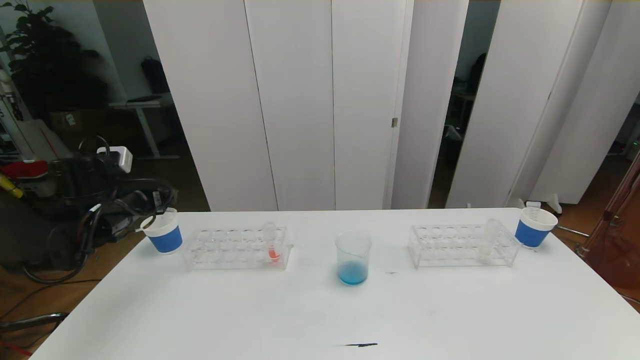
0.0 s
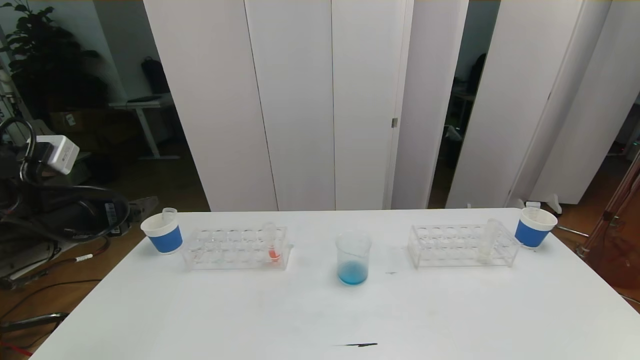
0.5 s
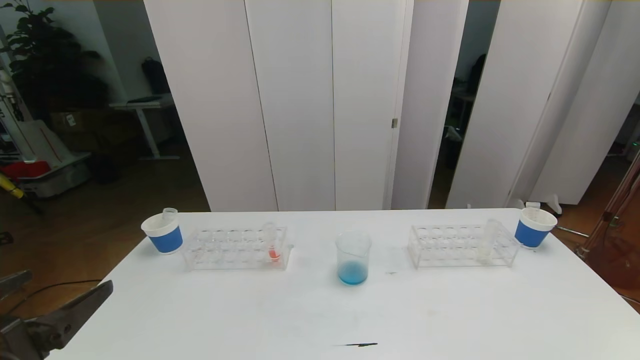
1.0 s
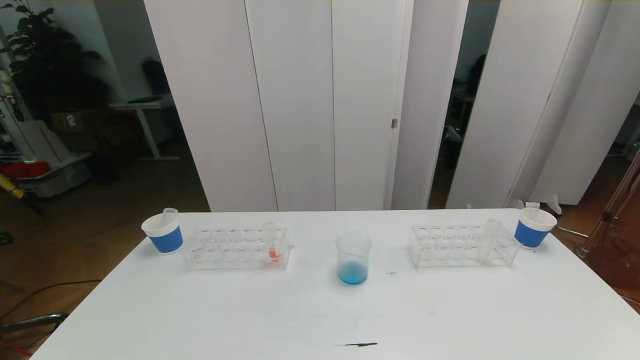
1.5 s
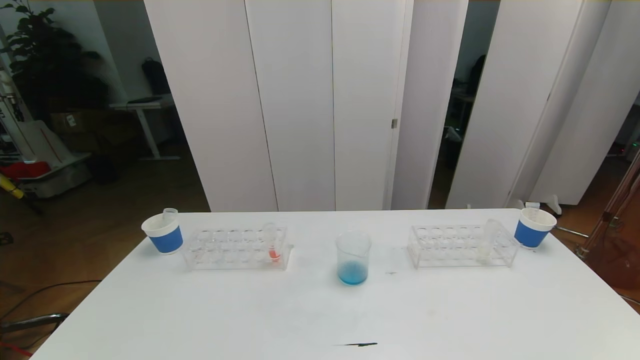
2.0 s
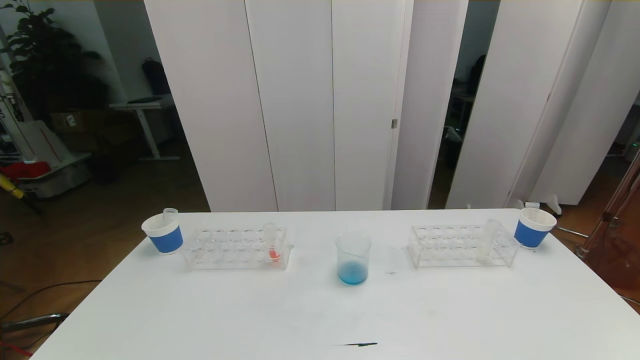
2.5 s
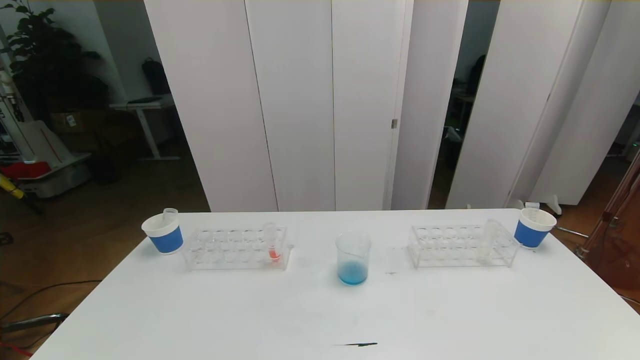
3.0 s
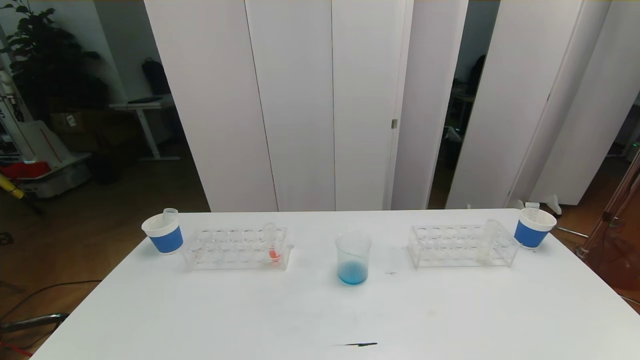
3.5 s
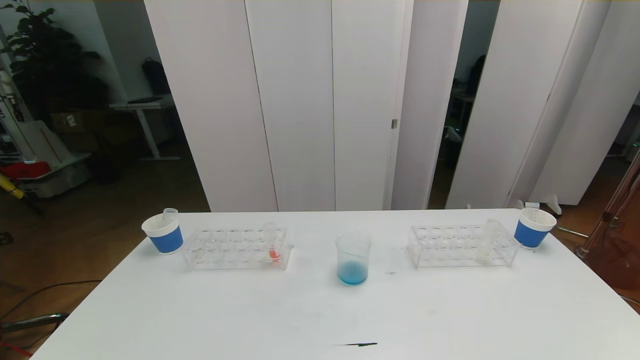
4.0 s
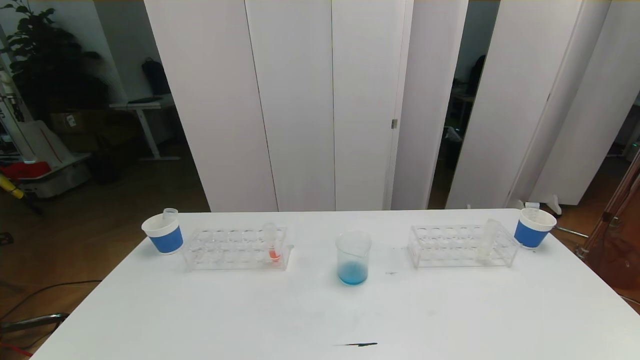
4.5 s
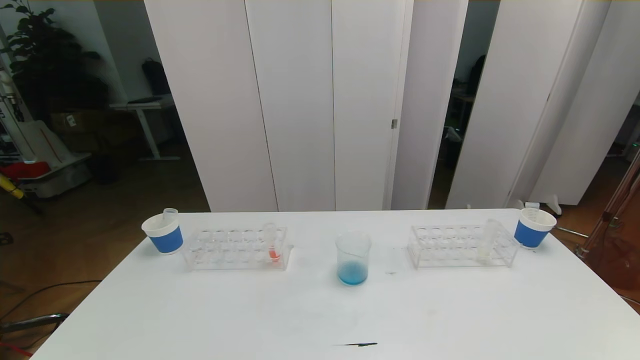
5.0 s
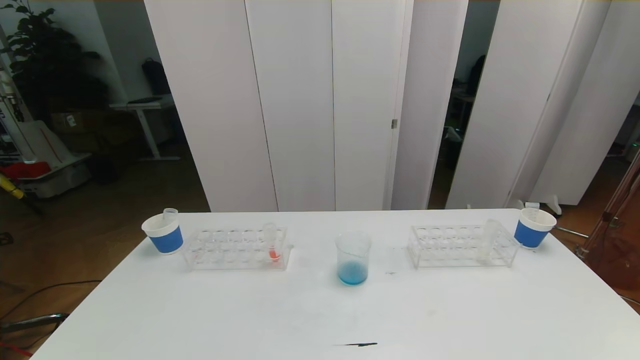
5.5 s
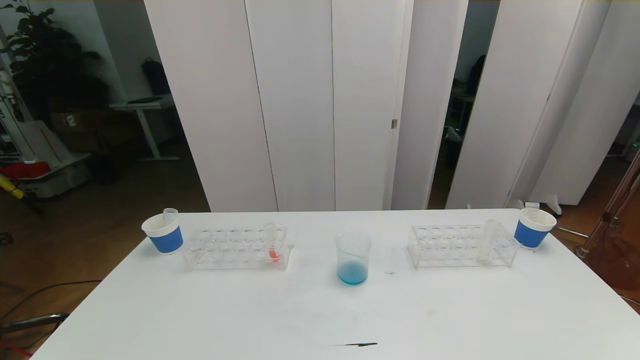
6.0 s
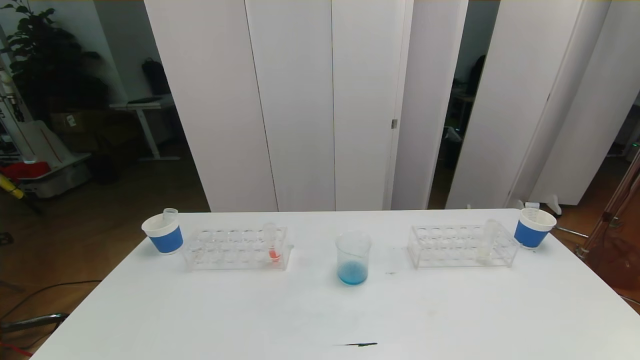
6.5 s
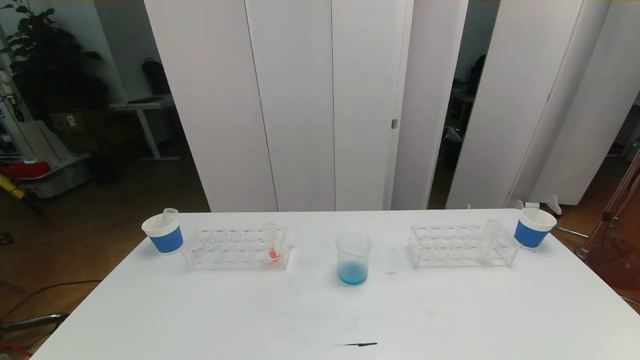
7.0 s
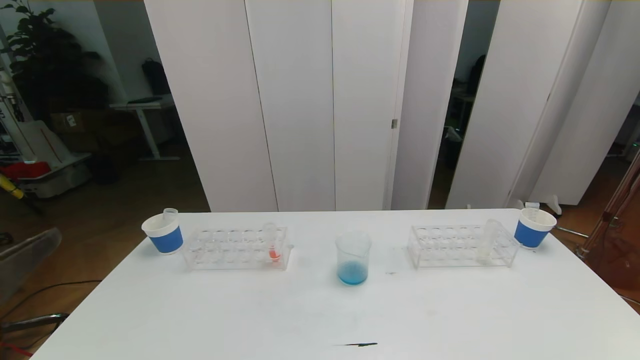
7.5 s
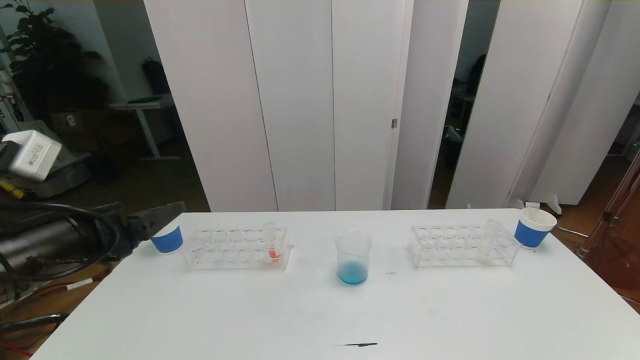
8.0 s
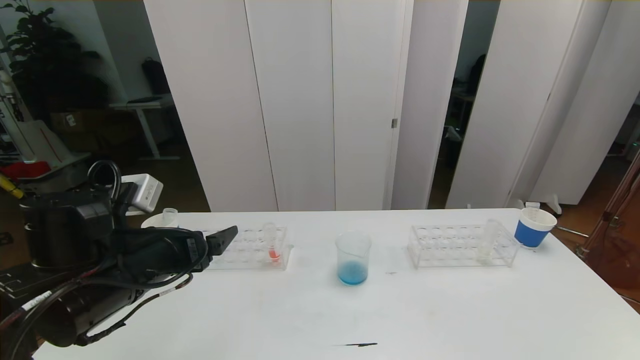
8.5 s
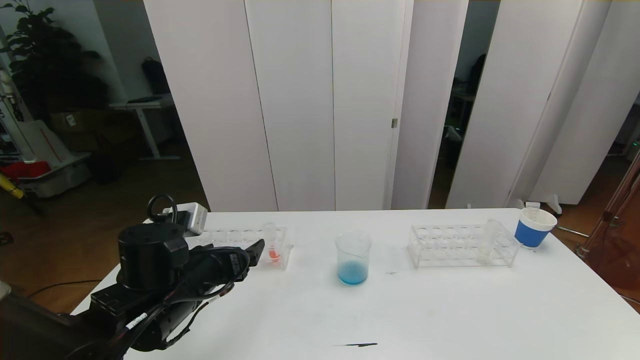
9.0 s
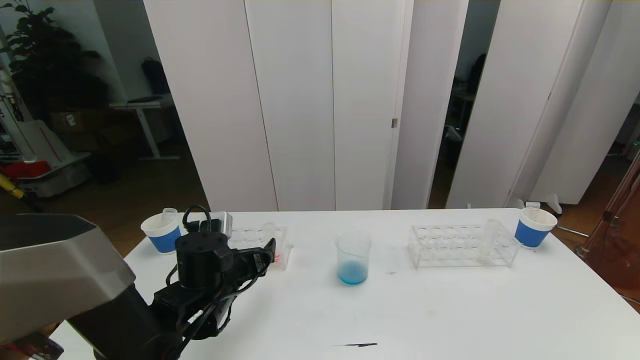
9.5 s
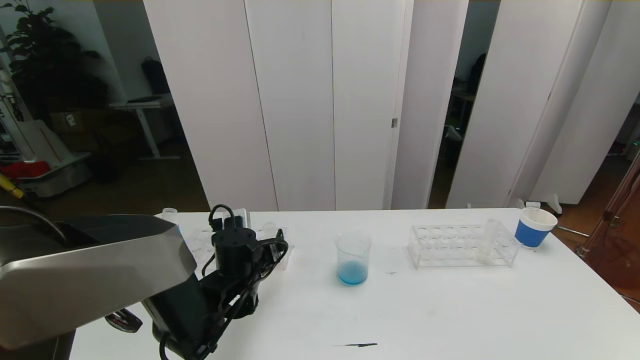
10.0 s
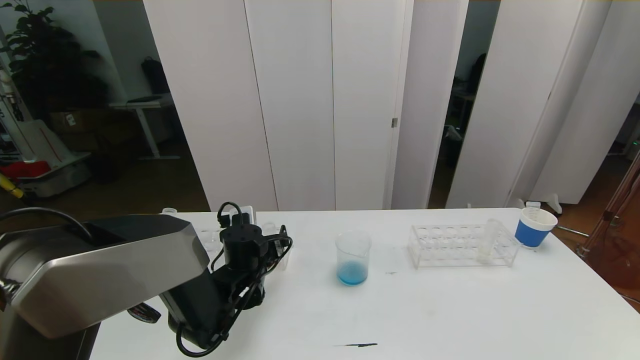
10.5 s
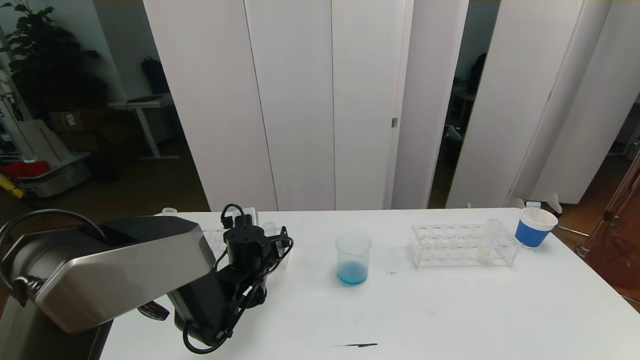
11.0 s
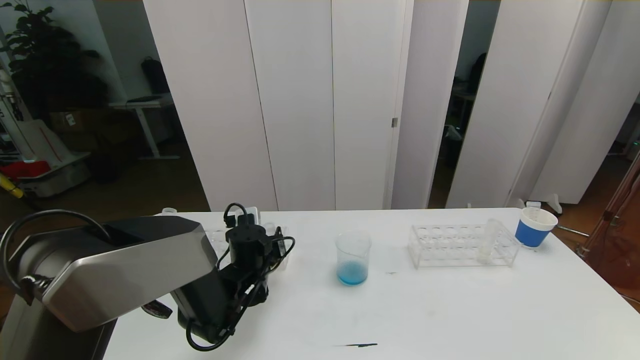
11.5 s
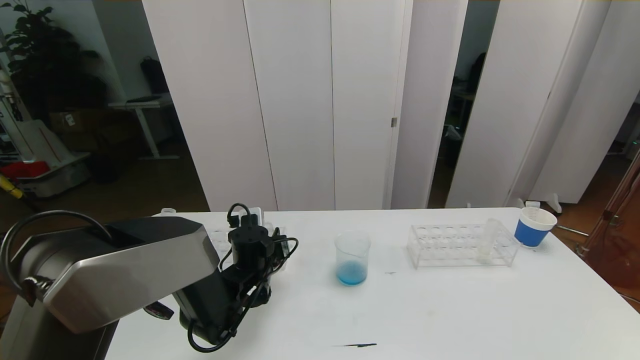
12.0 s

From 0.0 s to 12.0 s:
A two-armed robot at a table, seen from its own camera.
Task of the whole recording: pick up the test tube with red pigment the test tube with blue pigment and the test tube with white pigment by grippers and pour them into the beaker.
Step, from 0.0 s to 4.0 s: Pour the blue reagent into the graduated cylinder and place the test tube into the paper cup.
From 0.0 s to 2.0 s: The left gripper is displaced backward by approximately 35 cm.
From 4.0 s to 6.0 s: Neither gripper changes place.
From 6.0 s to 8.0 s: The left gripper moves forward and upward, approximately 25 cm.
From 8.0 s to 10.0 s: The left gripper moves downward, forward and to the right, approximately 25 cm.
From 10.0 s to 12.0 s: The left gripper closes its fingers.

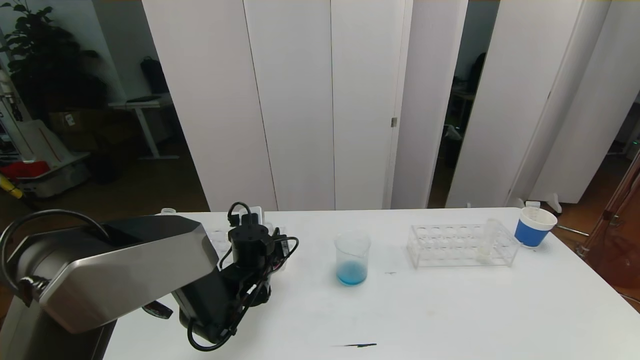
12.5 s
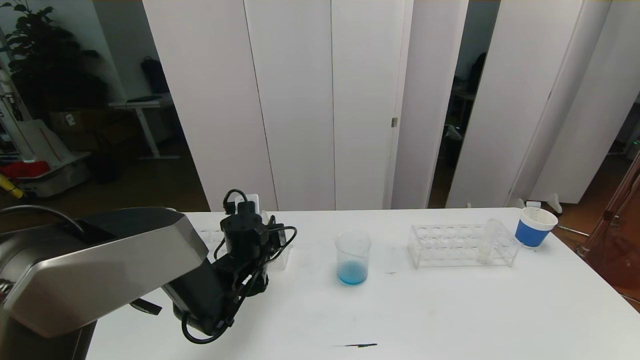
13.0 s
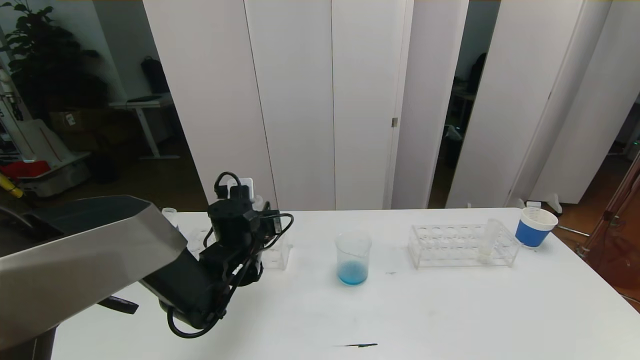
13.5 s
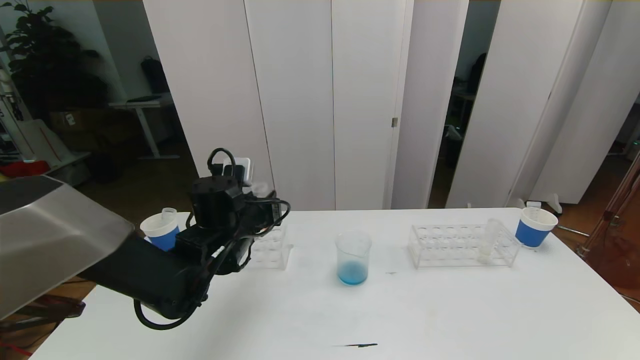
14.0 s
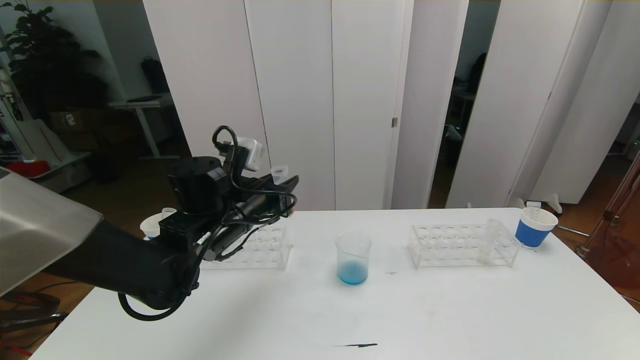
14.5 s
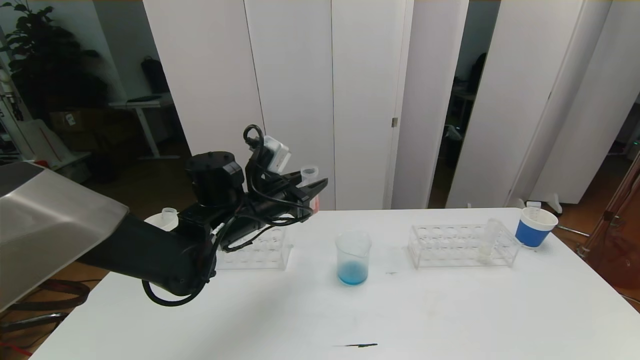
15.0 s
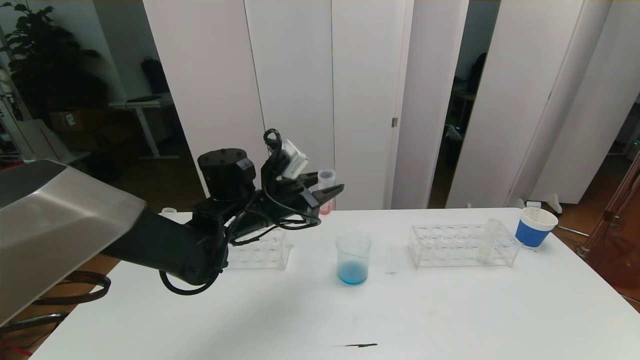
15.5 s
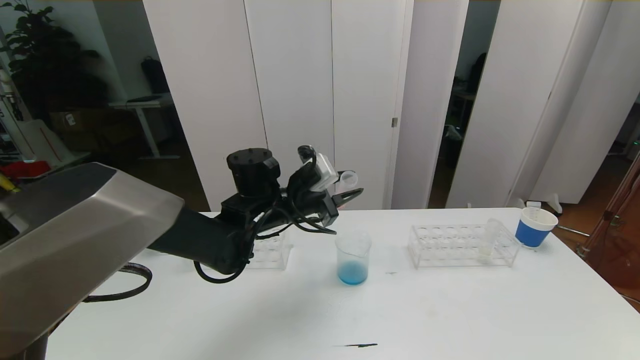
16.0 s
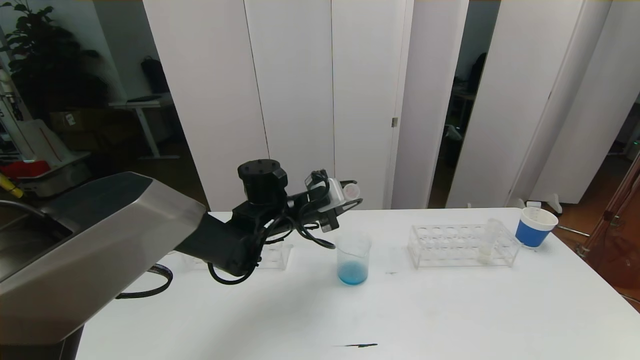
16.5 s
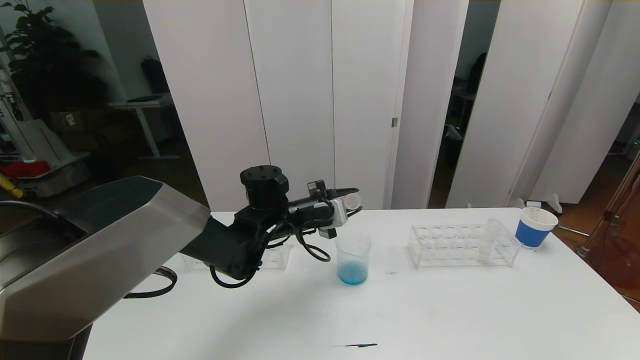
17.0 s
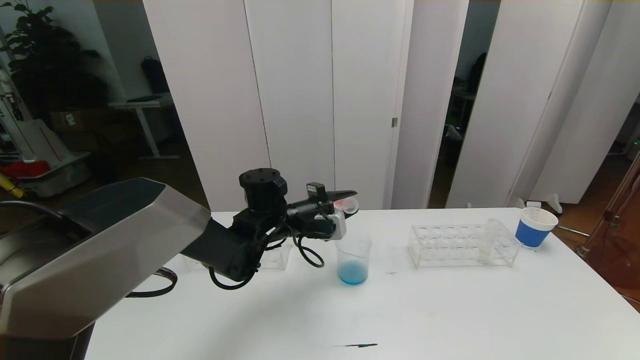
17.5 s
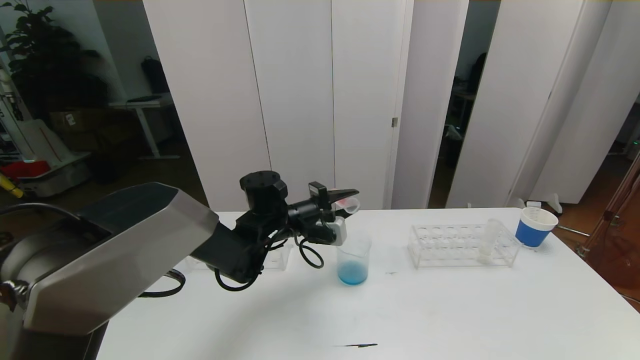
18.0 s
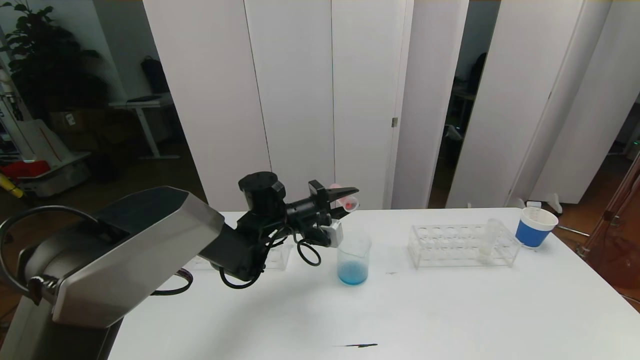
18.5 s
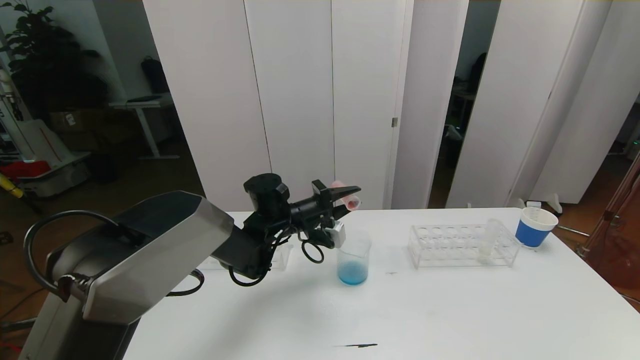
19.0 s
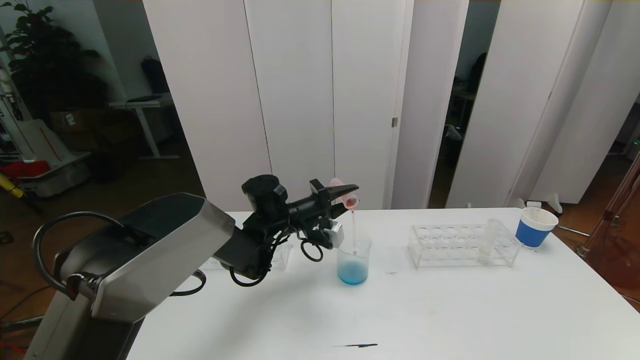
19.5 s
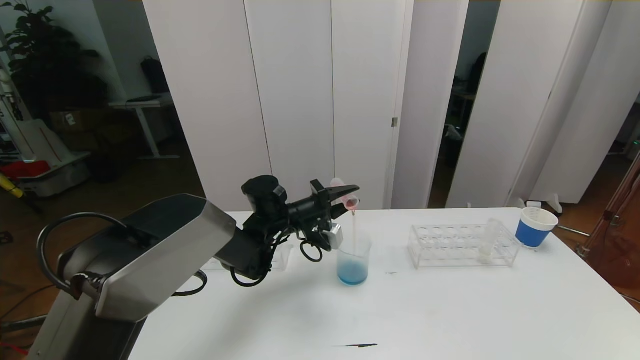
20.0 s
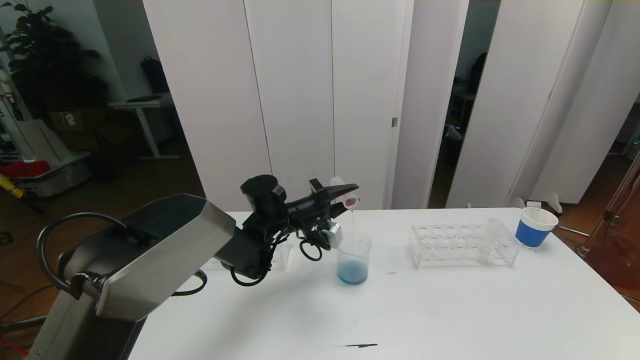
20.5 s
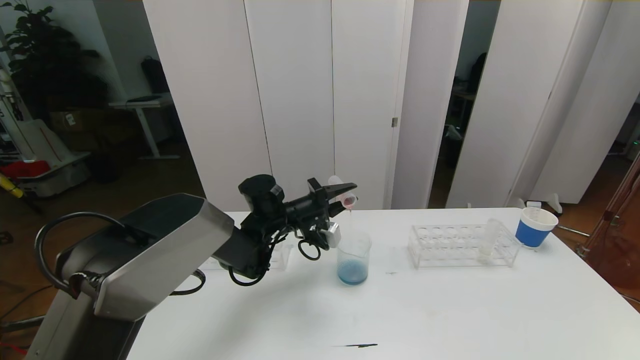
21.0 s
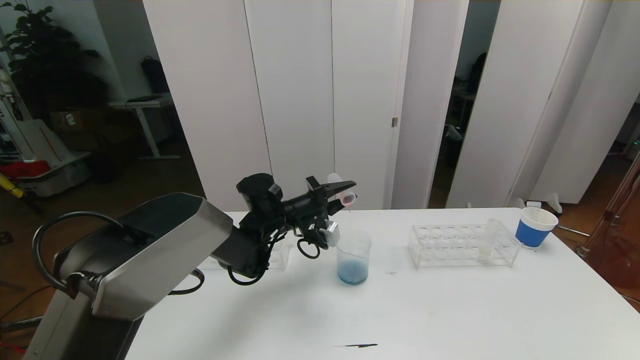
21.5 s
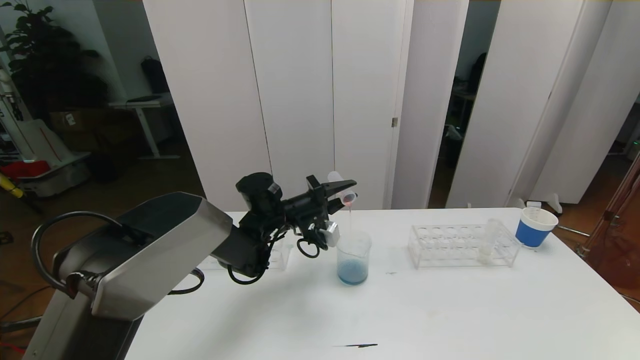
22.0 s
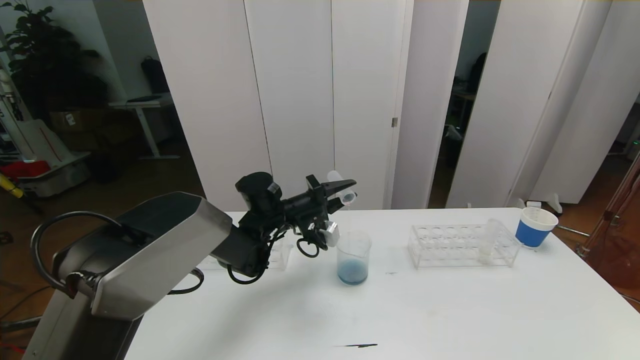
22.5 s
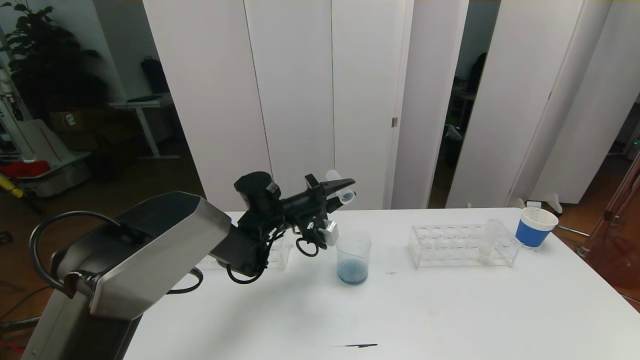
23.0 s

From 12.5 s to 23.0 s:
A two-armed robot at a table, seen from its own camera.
Task of the whole recording: pick up the test tube with red pigment the test tube with blue pigment and the test tube with white pigment by grippers and pour them into the beaker.
From 12.5 s to 14.5 s: The left gripper is displaced upward by approximately 15 cm.
From 14.5 s to 16.5 s: The left gripper heads to the right and forward, covering approximately 10 cm.
From 19.0 s to 21.0 s: The grippers make only small movements.
From 21.0 s to 23.0 s: Neither gripper changes place.
